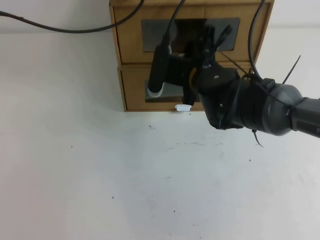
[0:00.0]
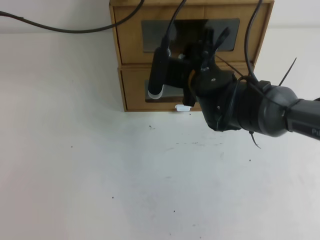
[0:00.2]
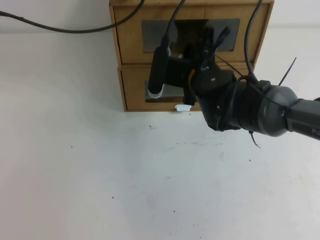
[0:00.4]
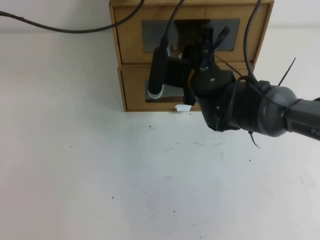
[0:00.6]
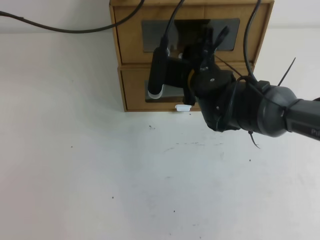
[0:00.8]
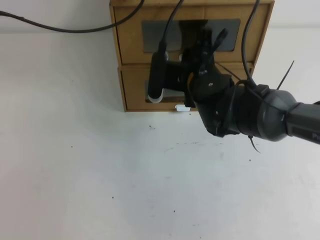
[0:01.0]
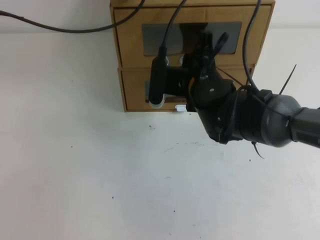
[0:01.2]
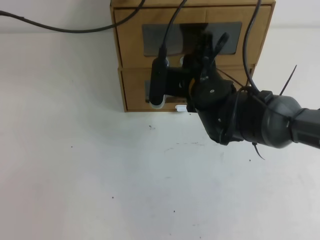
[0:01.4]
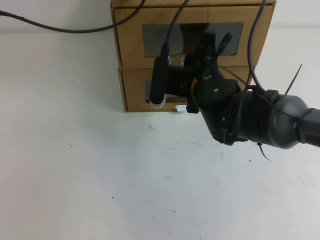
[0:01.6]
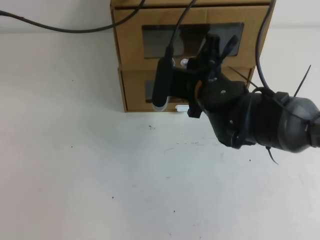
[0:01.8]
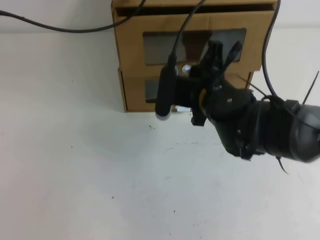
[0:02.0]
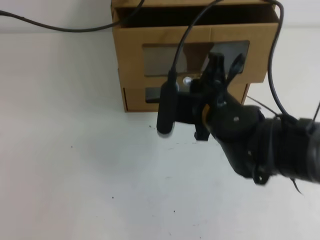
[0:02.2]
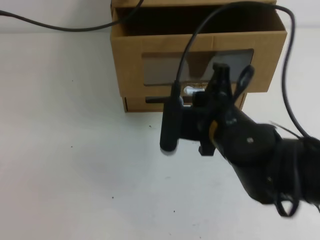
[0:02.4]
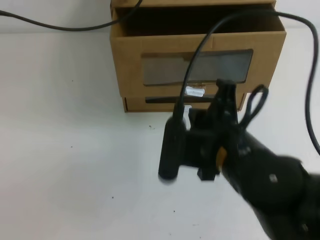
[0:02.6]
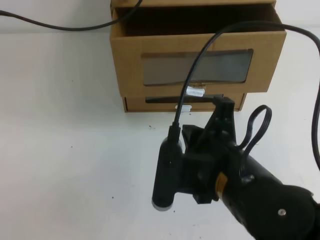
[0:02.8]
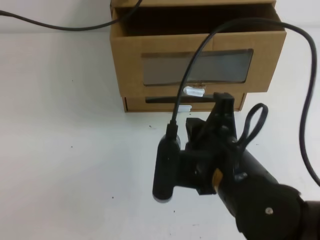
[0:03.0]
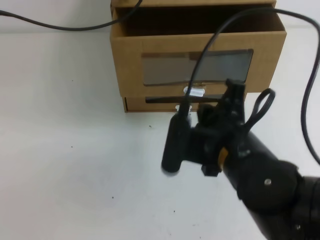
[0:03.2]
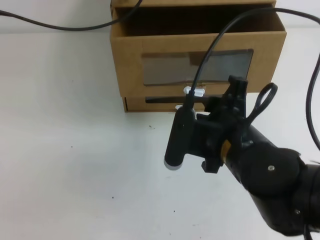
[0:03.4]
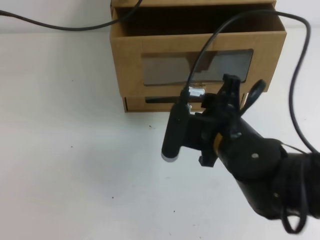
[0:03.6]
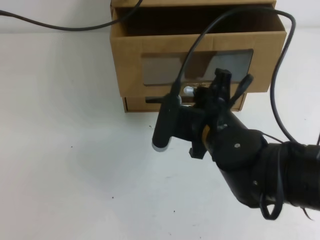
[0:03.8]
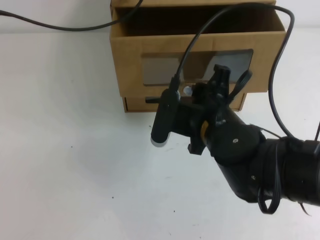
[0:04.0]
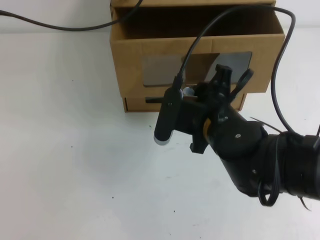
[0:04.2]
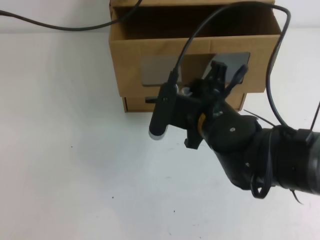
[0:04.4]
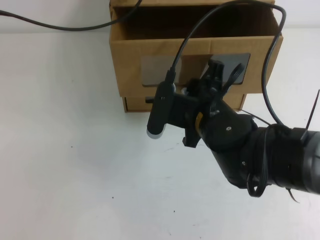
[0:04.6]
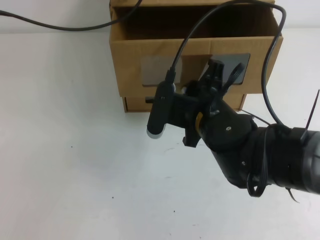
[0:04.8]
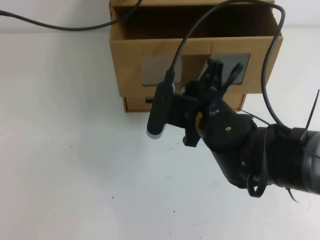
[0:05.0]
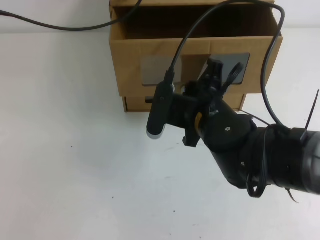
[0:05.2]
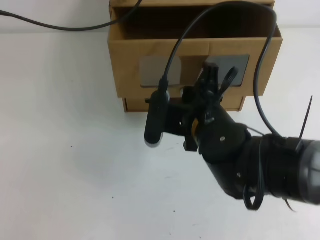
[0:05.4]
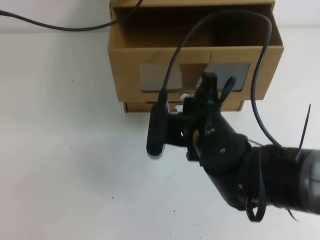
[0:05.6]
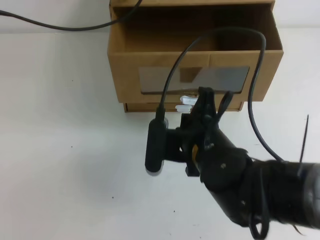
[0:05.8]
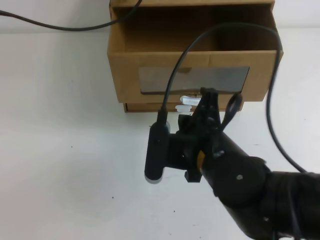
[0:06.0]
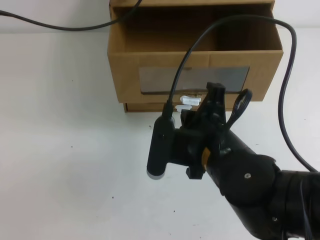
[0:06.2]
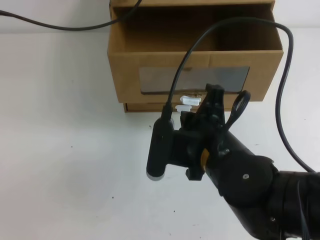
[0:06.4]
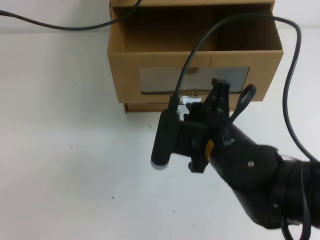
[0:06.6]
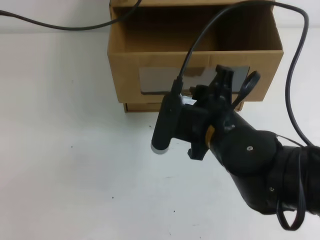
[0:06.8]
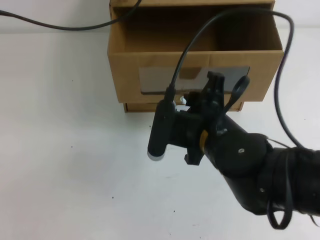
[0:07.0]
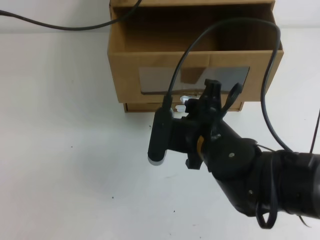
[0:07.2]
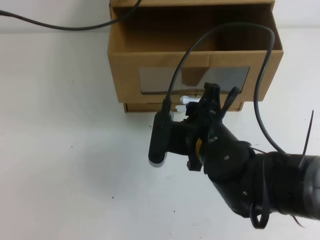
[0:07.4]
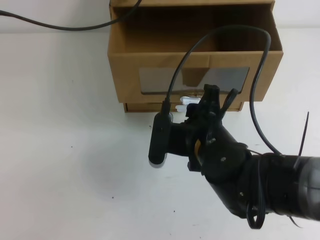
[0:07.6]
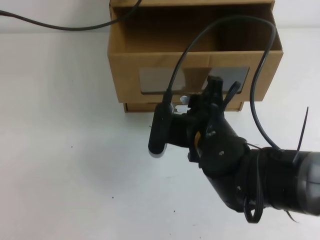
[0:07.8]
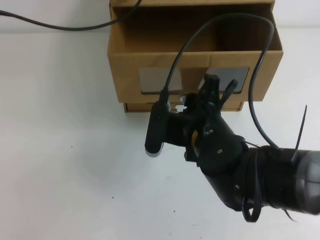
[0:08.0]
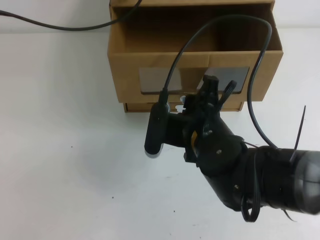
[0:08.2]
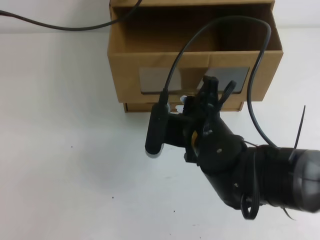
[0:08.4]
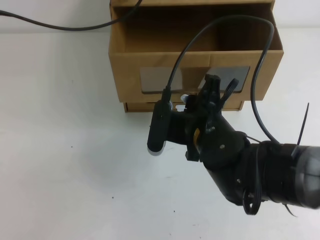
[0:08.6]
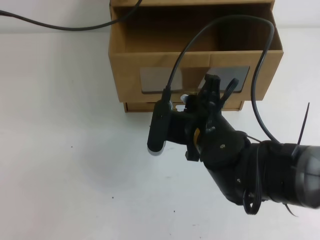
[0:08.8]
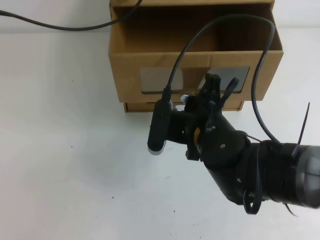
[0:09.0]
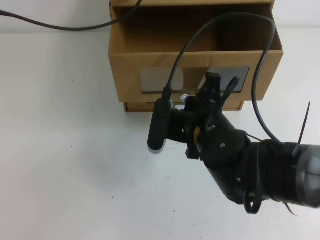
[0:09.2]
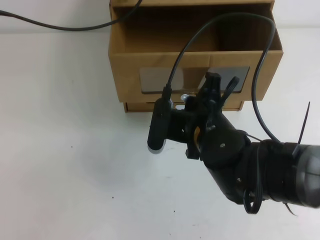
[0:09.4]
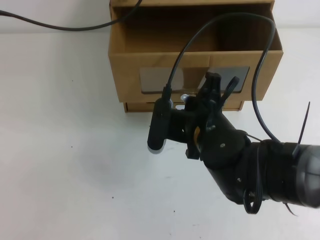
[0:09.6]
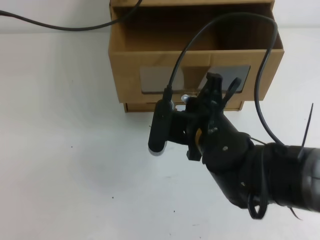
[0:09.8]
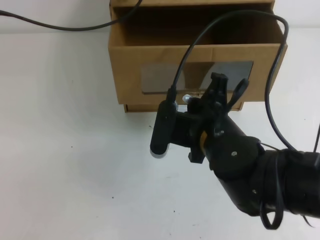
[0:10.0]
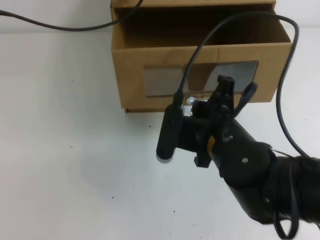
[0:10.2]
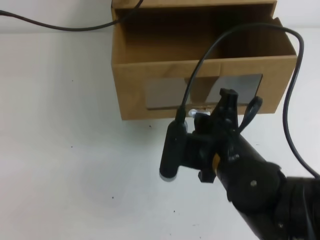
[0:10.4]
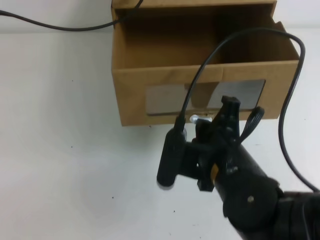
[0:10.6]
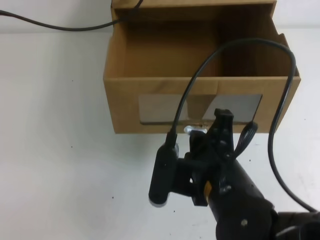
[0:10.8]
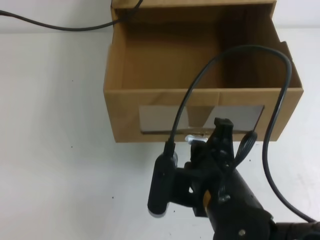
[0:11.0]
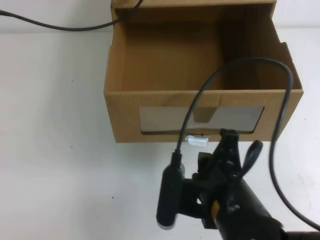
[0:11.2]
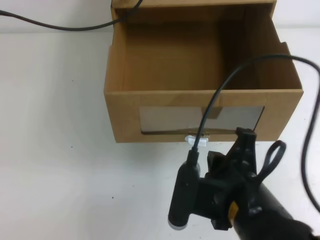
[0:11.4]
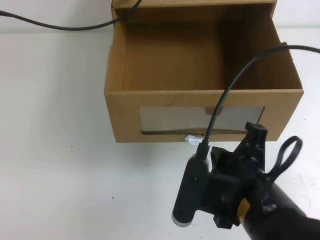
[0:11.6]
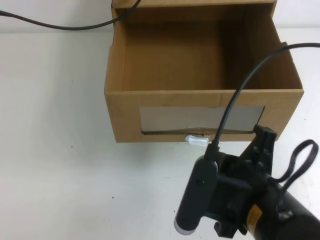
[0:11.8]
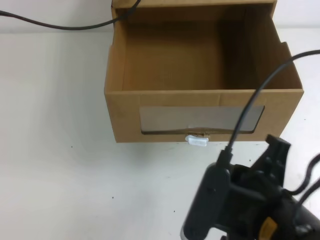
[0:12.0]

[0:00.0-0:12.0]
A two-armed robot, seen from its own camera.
Task of the whole recording: open the shoebox on the table.
0:00.0 to 0:01.6: The right gripper closes its fingers.
0:01.6 to 0:03.0: The right gripper shifts roughly 15 cm backward.
0:03.0 to 0:04.4: The right gripper is displaced forward by some 10 cm, and opens its fingers.
0:04.4 to 0:06.0: The right gripper closes.
0:06.0 to 0:07.6: The right gripper opens up.
0:07.6 to 0:09.0: The right gripper closes up.
0:10.4 to 0:12.0: The left gripper opens up. The right gripper moves backward, roughly 10 cm.

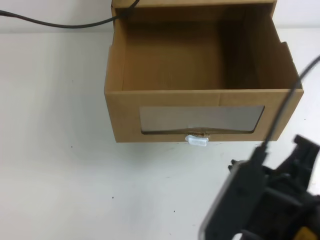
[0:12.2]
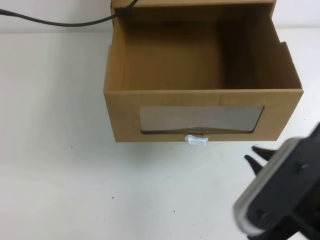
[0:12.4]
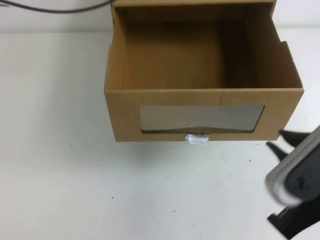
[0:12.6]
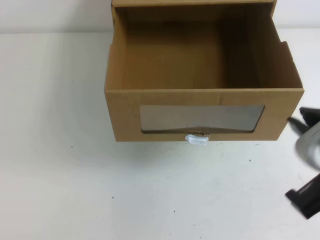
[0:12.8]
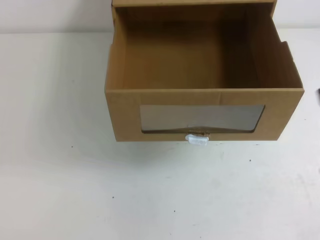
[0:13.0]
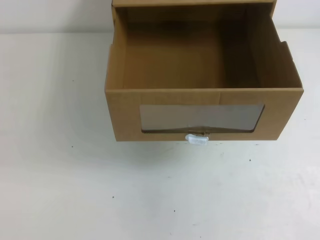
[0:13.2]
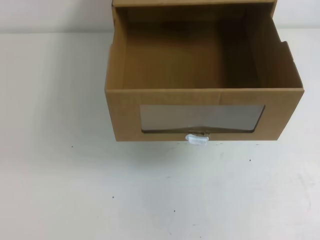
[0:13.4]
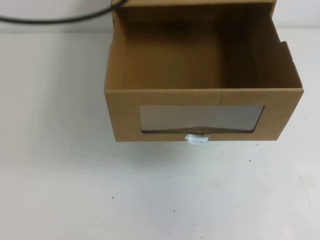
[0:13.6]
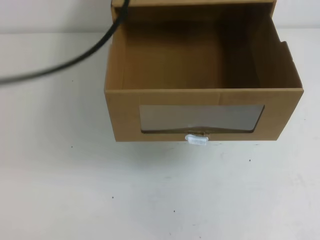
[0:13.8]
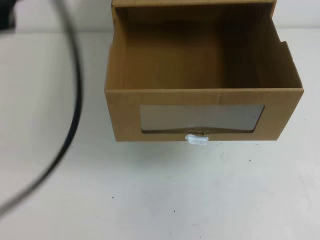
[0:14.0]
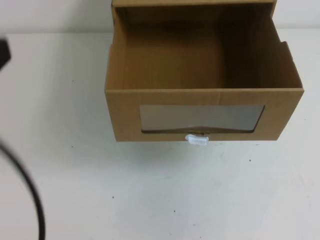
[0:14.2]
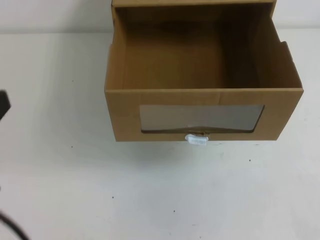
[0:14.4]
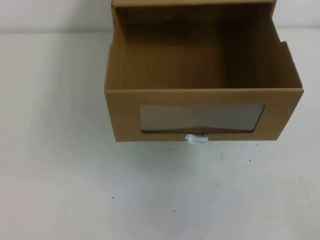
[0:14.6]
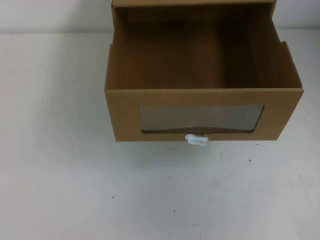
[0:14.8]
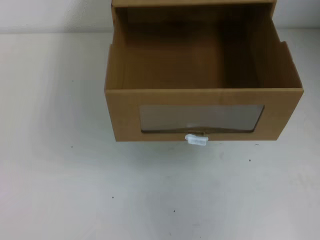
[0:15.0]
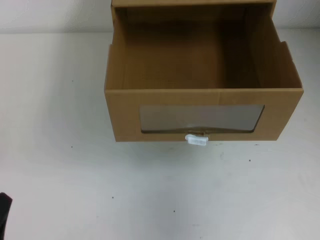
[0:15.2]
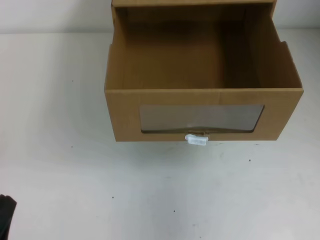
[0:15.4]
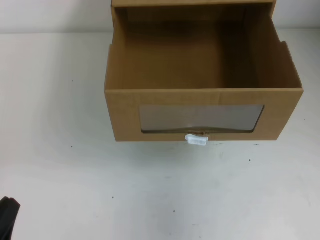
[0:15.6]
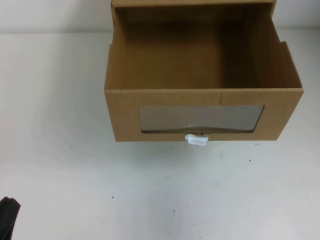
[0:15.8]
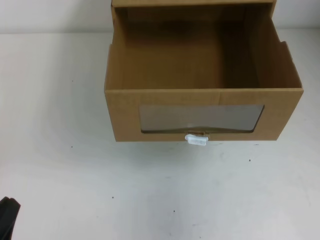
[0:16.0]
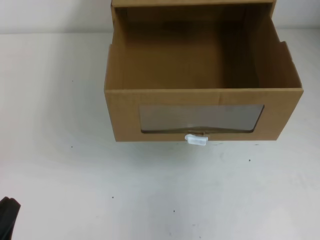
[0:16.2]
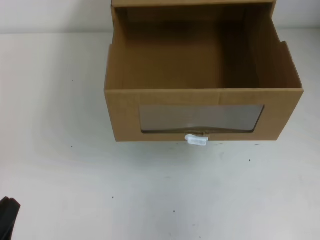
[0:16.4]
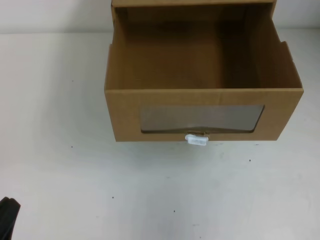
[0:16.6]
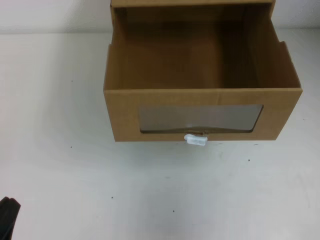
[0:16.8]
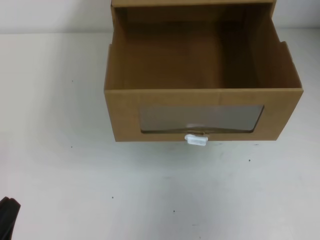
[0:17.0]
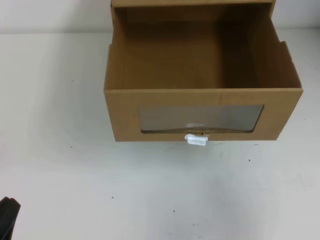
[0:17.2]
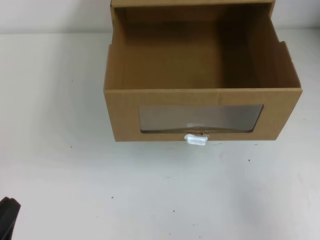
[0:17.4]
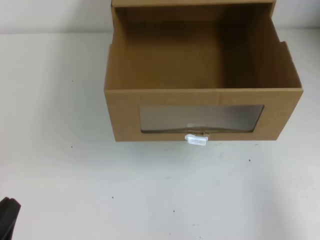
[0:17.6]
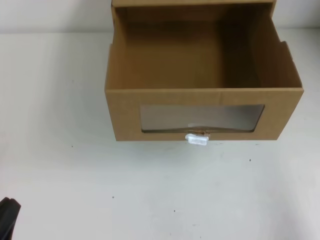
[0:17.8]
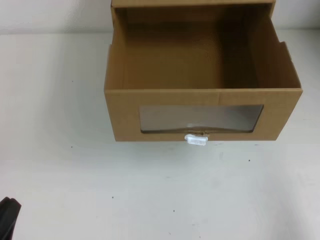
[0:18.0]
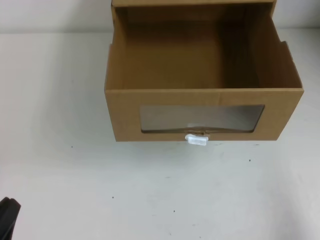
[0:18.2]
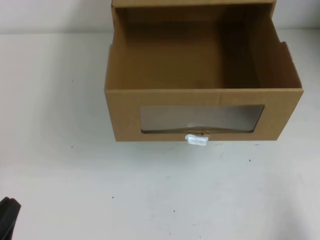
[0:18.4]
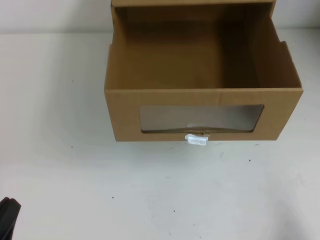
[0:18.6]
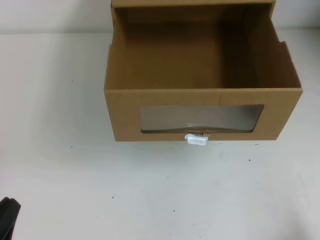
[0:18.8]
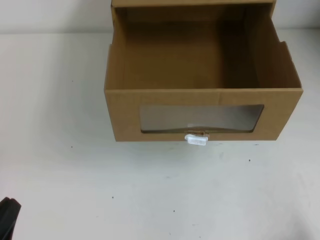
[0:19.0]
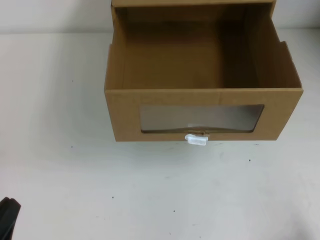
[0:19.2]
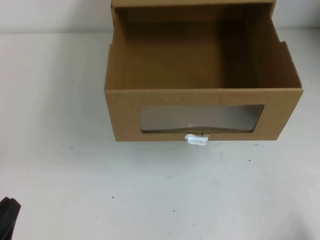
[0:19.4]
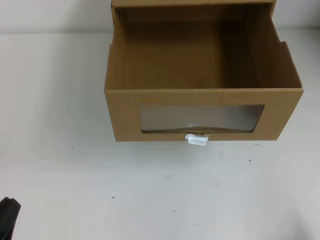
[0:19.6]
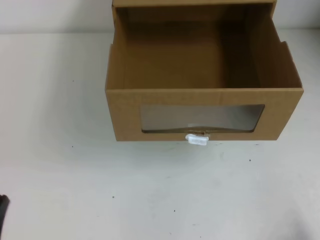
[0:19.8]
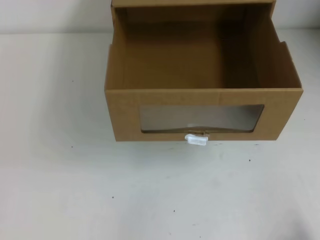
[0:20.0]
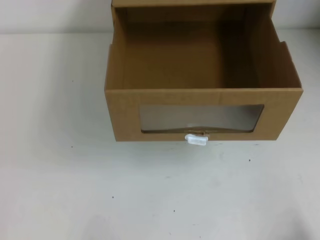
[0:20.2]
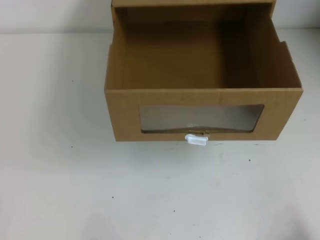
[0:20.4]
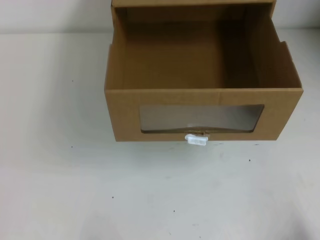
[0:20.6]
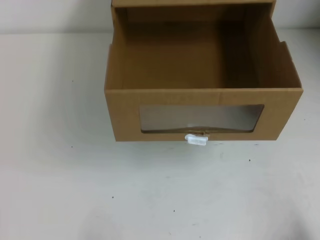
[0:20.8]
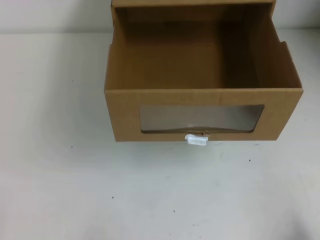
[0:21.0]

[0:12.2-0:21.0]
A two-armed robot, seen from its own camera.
Task of the whole recording: open the shoebox on the table.
Step, 0:12.2 to 0:21.0: Open the shoe box.
0:12.2 to 0:13.6: The right gripper travels to the right and upward by some 20 cm; the left gripper heads backward and upward, covering approximately 25 cm, and closes up.
0:13.6 to 0:15.2: The left gripper moves downward and backward, some 40 cm.
0:16.6 to 0:18.0: The right gripper travels downward and to the right by some 20 cm.

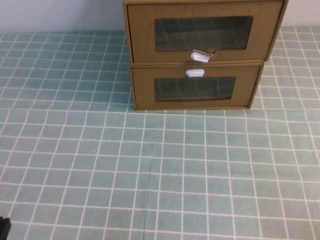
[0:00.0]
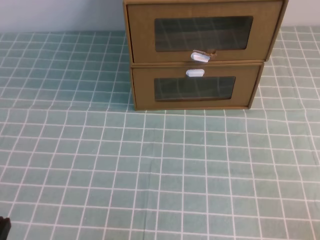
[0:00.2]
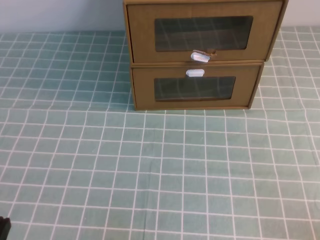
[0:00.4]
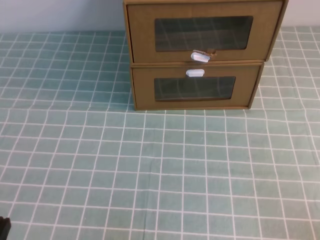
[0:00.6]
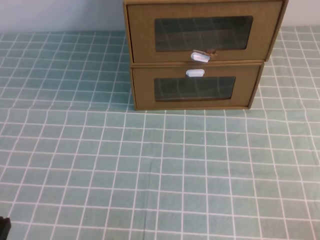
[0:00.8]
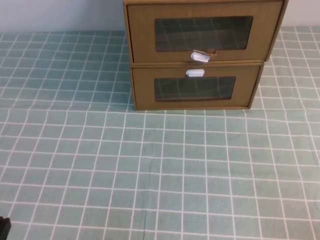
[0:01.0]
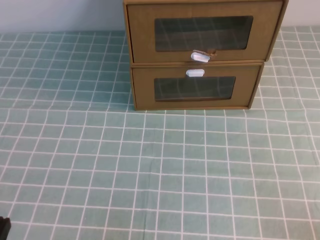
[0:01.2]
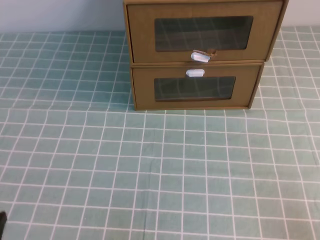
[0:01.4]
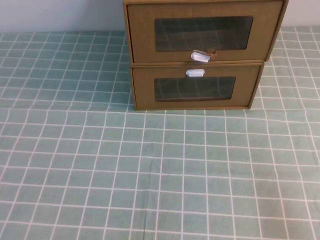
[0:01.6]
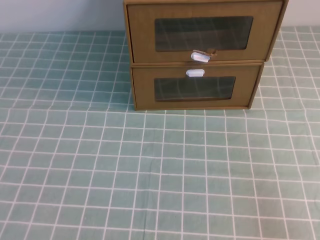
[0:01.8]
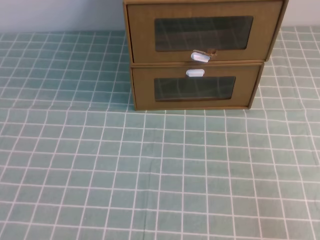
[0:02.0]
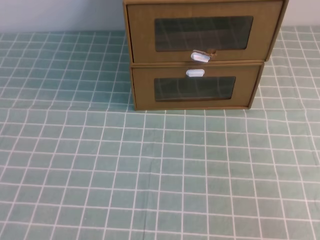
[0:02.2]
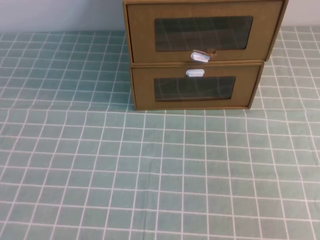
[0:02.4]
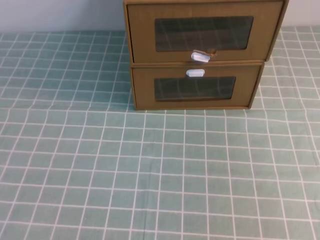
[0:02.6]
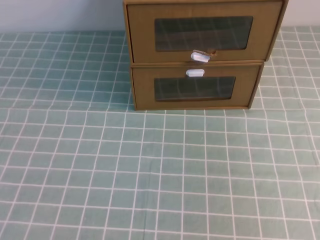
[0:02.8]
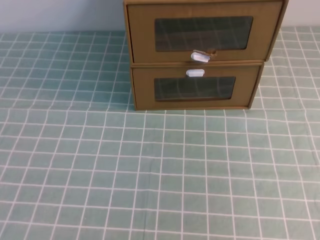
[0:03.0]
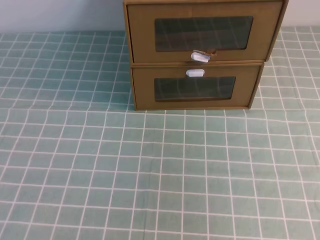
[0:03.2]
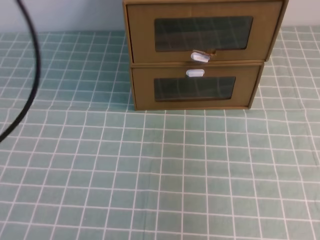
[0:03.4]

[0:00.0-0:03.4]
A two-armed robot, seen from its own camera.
Task of the whole recording: open the shoebox on the cyan tablecloth.
0:01.6 to 0:03.4: The right gripper shifts roughly 25 cm upward. The left gripper shifts some 30 cm upward and forward.
